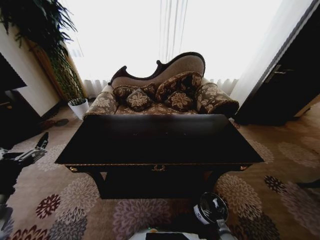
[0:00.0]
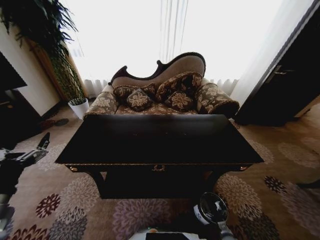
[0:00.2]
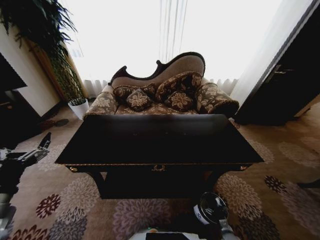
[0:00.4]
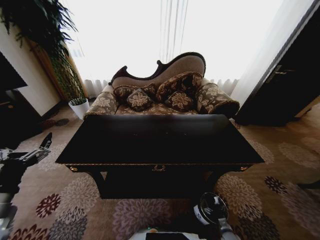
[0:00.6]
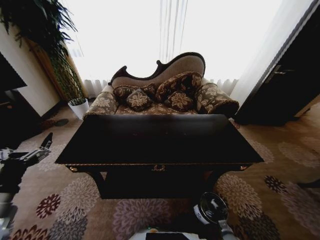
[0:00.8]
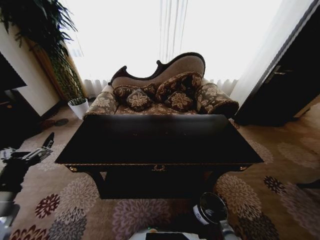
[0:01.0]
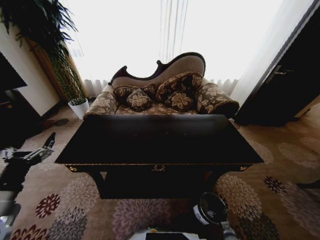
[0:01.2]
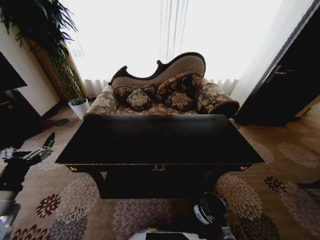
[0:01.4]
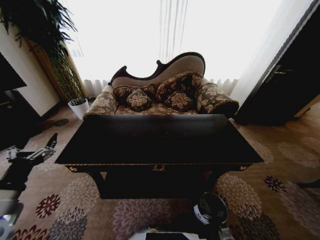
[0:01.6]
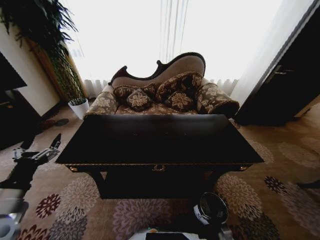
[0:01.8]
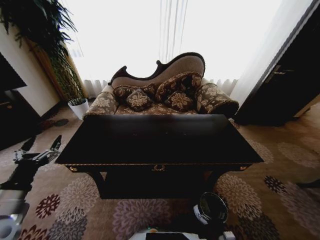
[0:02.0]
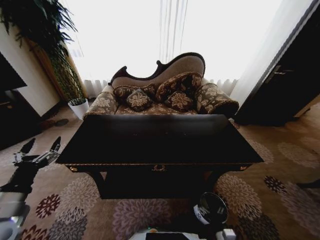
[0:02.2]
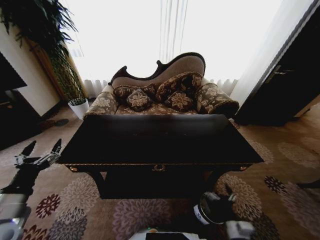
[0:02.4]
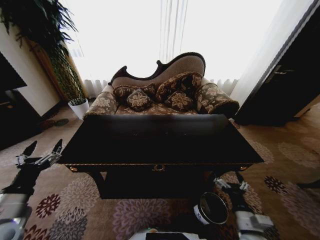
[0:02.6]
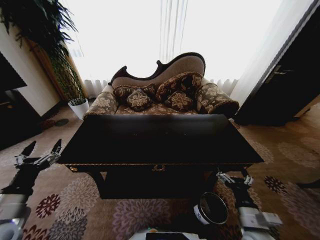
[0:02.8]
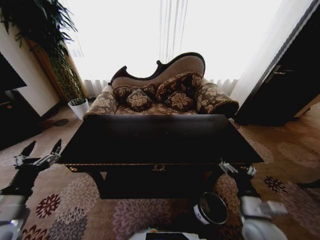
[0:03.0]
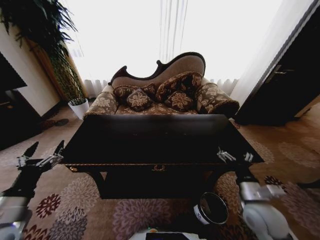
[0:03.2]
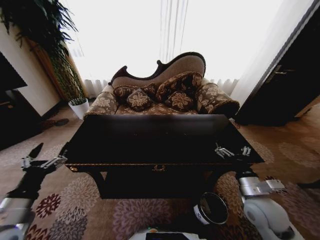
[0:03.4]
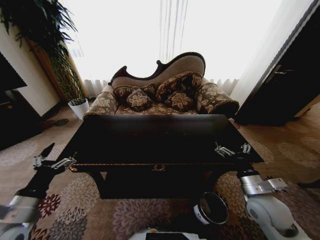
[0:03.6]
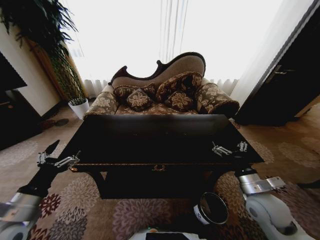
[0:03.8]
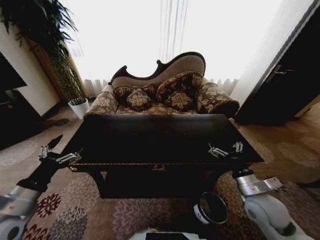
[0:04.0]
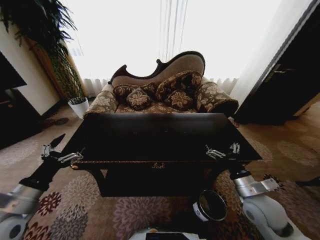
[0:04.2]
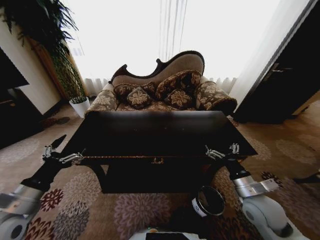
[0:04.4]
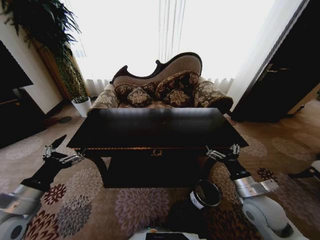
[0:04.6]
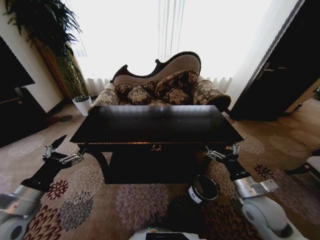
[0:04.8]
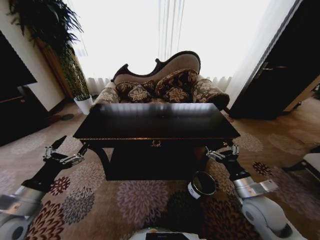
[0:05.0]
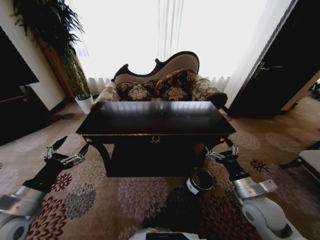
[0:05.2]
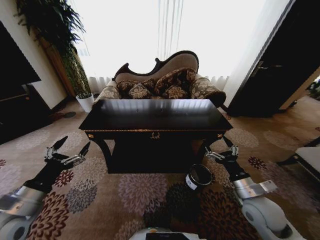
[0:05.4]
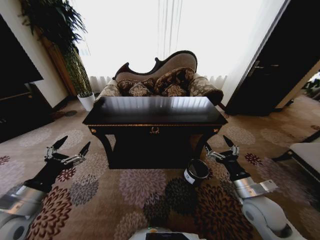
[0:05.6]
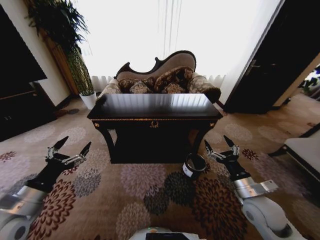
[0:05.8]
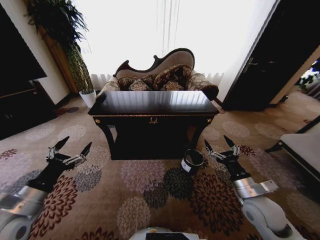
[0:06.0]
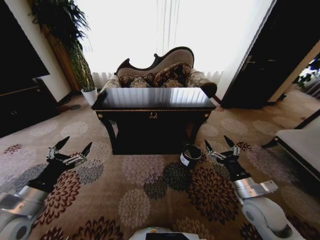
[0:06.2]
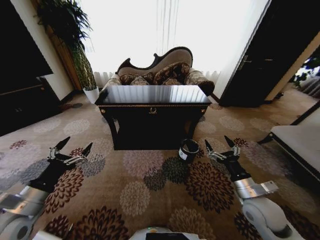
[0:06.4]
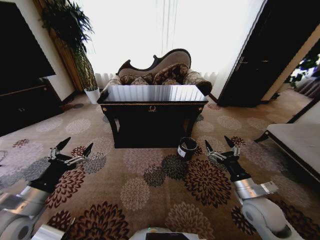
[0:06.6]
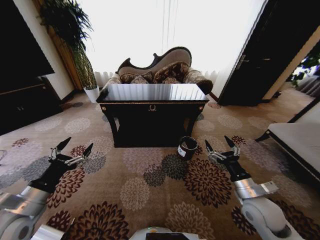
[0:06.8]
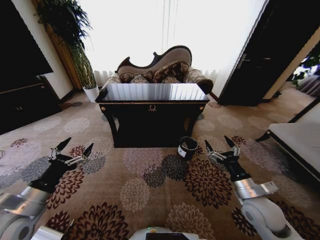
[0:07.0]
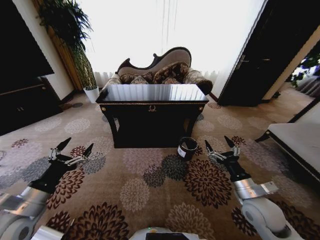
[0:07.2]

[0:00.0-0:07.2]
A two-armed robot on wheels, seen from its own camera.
Task of the whole recording: Move to the front of the table and place the trash on the table into the trash bin.
0.0 to 1.4 s: The grippers move only a little.
1.4 to 2.8 s: The right gripper heads upward, covering about 35 cm.
2.8 to 4.4 s: The right gripper travels forward and upward by roughly 10 cm.

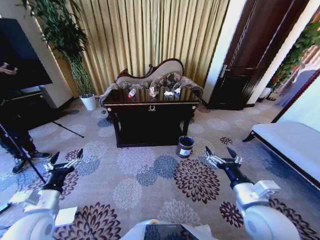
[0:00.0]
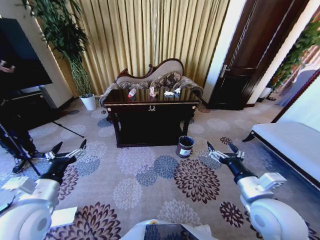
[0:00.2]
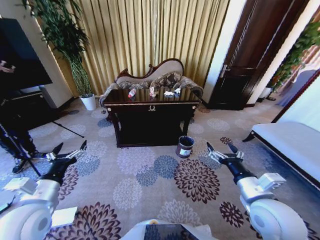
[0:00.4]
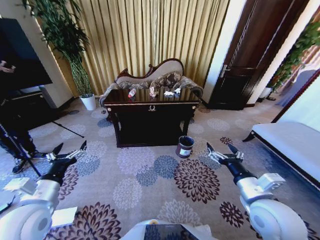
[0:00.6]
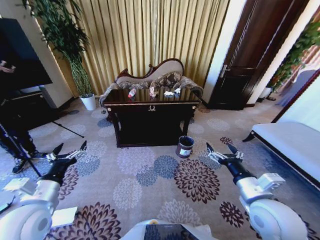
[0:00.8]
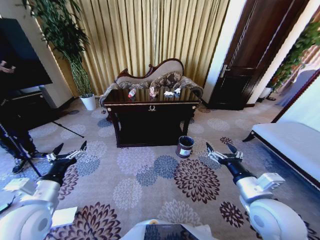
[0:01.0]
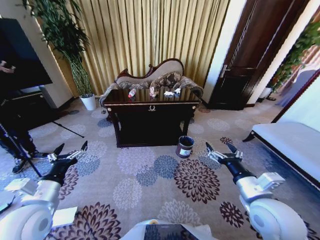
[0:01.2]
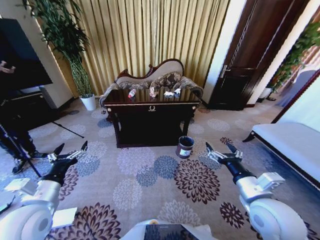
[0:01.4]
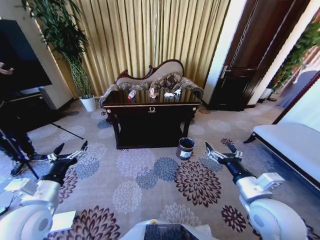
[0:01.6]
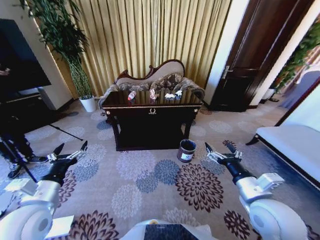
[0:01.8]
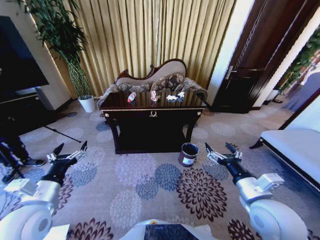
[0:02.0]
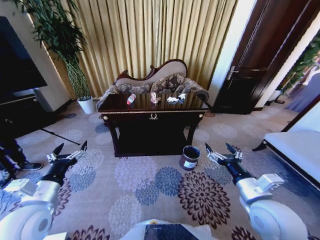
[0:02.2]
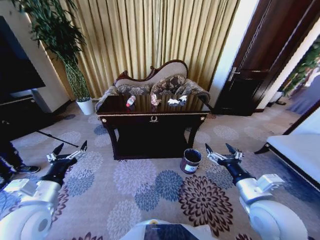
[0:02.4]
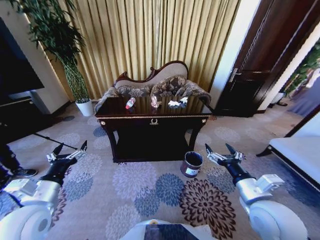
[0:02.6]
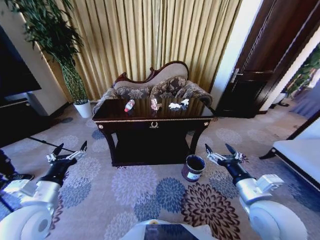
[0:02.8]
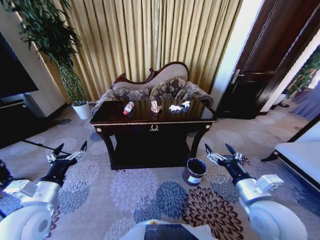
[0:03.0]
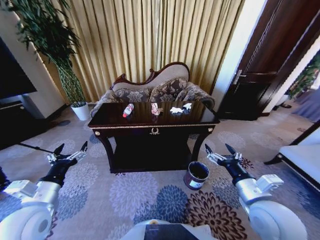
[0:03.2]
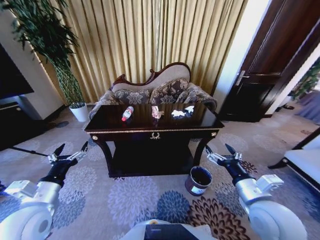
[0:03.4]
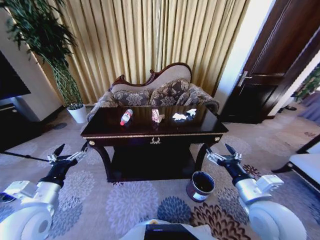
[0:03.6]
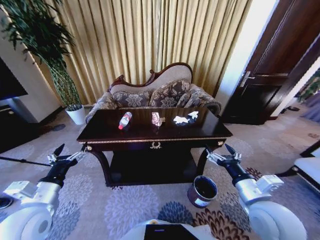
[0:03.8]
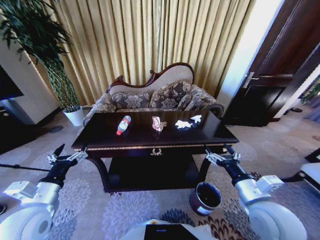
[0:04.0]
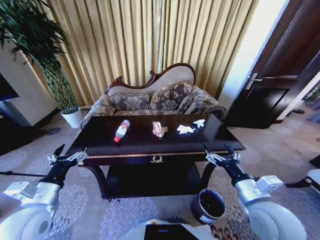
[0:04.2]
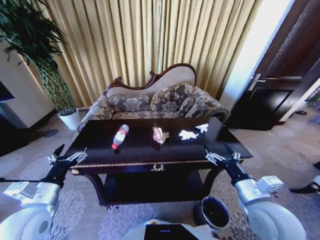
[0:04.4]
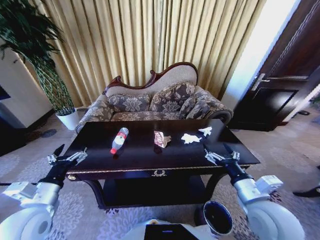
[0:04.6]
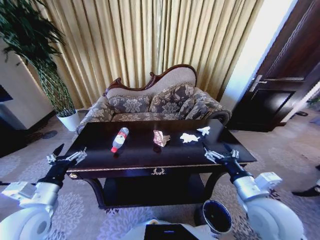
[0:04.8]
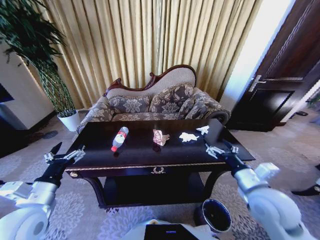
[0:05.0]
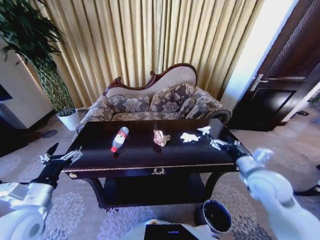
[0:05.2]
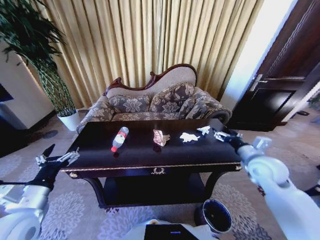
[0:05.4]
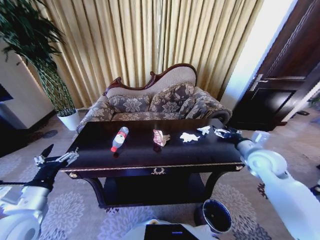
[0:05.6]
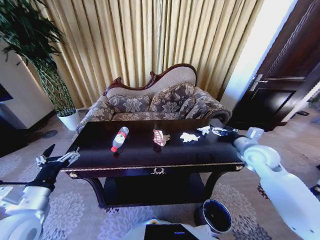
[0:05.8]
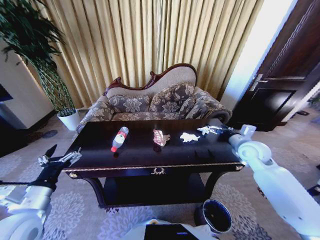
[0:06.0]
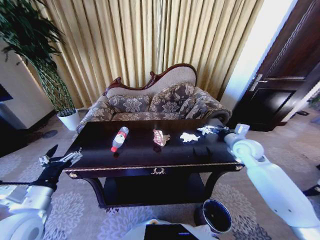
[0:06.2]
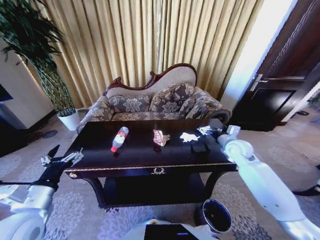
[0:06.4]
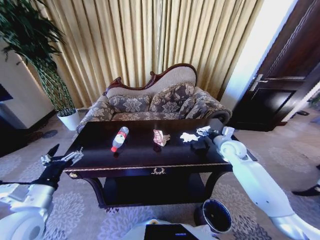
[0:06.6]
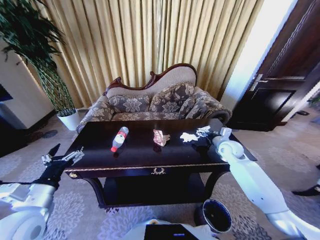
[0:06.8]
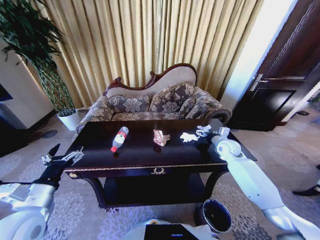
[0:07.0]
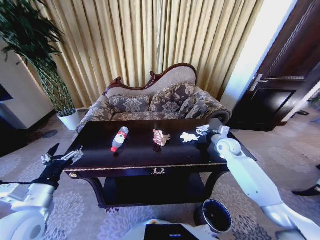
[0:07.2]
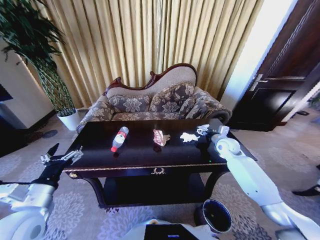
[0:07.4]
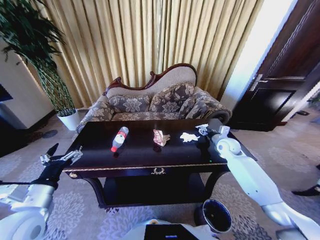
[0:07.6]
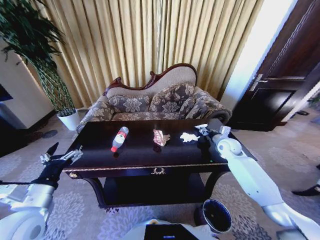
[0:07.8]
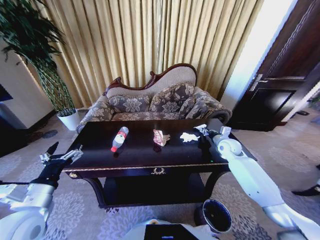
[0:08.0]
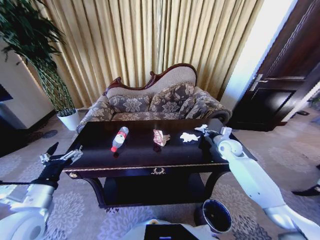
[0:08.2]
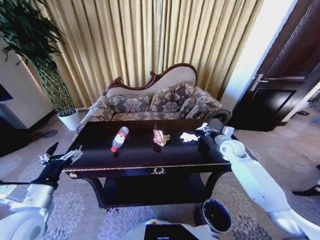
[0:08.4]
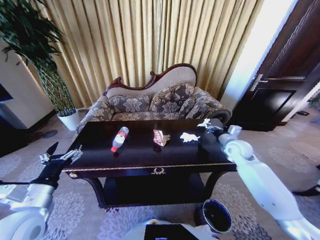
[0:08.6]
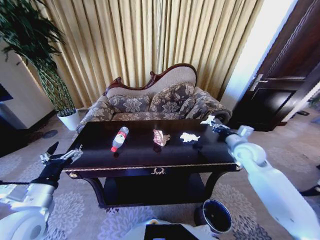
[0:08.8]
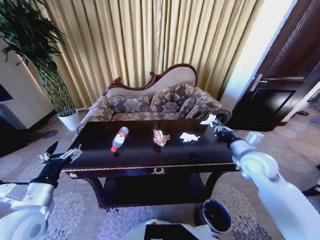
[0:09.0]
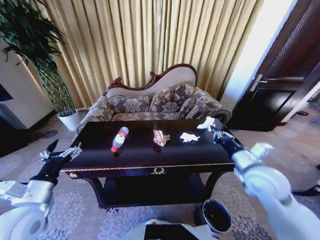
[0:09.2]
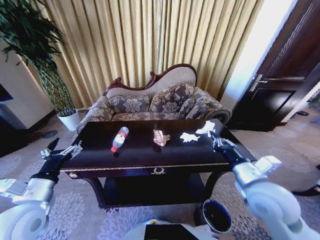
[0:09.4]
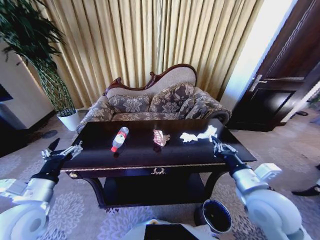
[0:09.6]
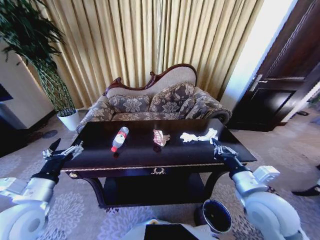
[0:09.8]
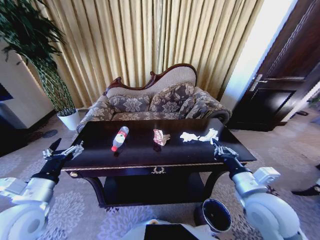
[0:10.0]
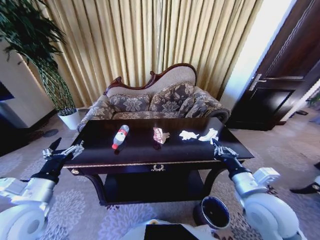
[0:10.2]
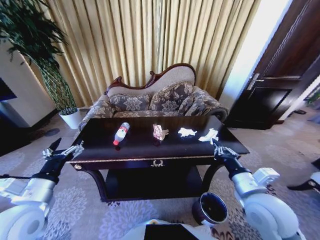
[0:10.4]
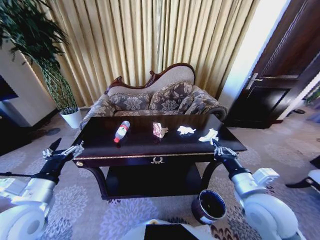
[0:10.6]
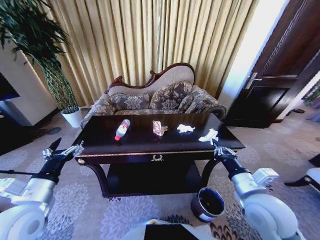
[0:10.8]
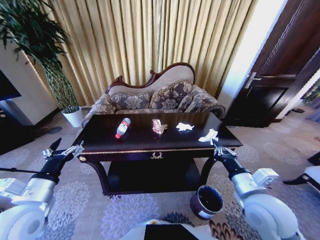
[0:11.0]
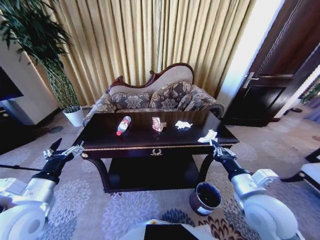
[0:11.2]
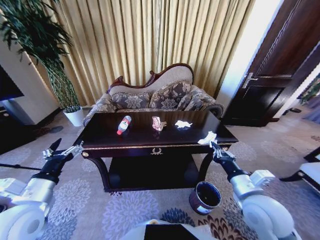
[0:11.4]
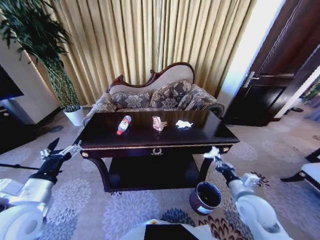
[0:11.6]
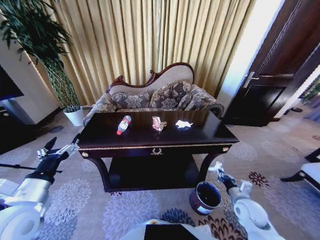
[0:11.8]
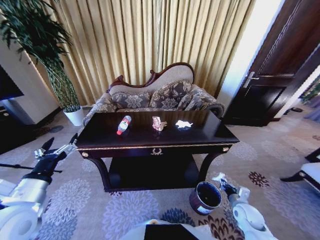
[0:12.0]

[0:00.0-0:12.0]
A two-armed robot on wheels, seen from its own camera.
Task of the whole recording: Move to the front of the table and place the trash on the table into the trash bin.
4.4 to 6.0 s: The right gripper shifts approximately 25 cm forward and to the right.
6.0 to 7.6 s: The right gripper is displaced forward and downward by some 10 cm.
7.6 to 9.0 s: The right gripper heads backward and upward, covering roughly 15 cm, and closes.
9.0 to 10.4 s: The right gripper heads backward and to the left, covering about 15 cm.
10.4 to 12.0 s: The right gripper heads downward and to the right, covering about 30 cm.

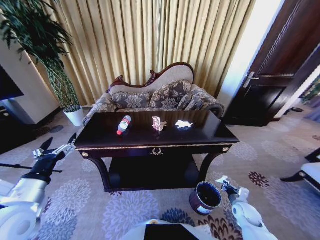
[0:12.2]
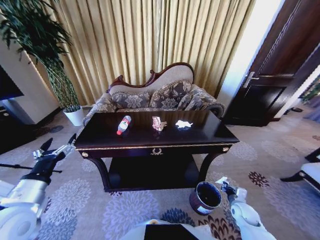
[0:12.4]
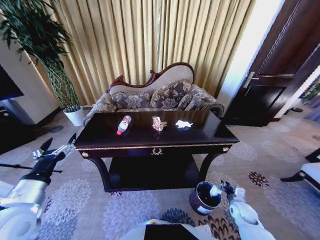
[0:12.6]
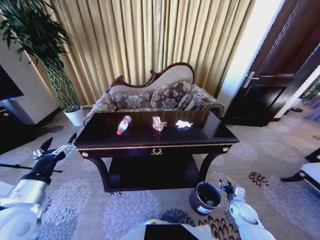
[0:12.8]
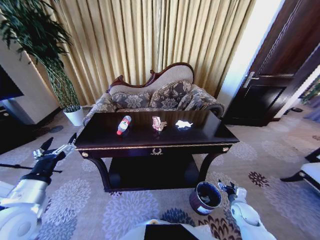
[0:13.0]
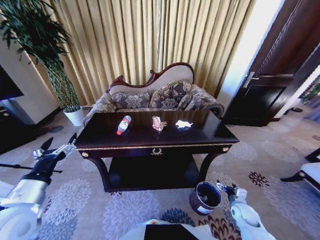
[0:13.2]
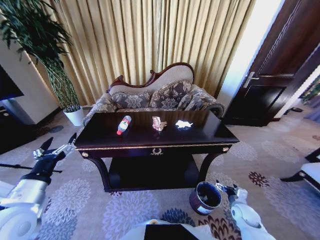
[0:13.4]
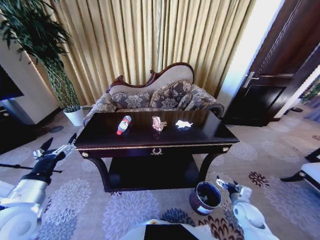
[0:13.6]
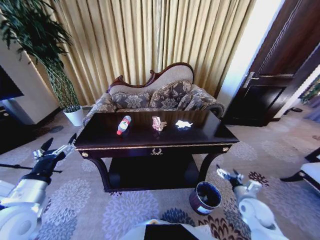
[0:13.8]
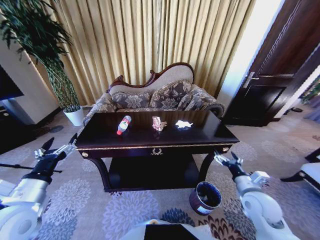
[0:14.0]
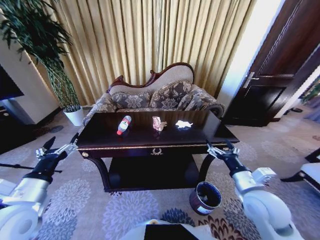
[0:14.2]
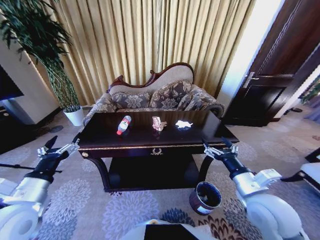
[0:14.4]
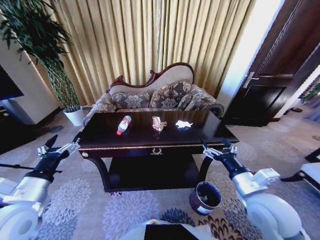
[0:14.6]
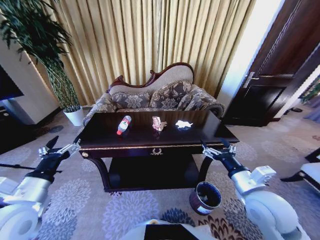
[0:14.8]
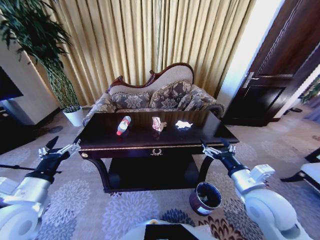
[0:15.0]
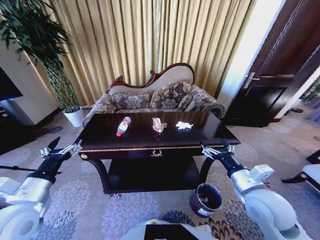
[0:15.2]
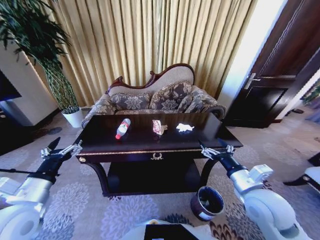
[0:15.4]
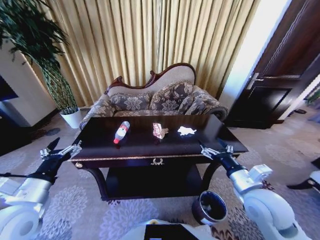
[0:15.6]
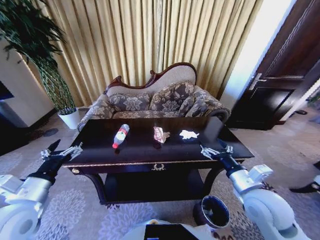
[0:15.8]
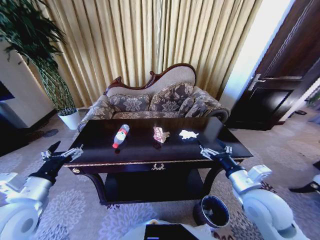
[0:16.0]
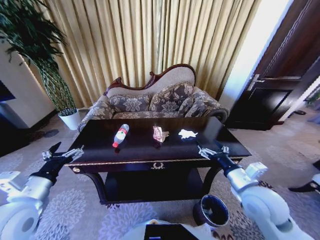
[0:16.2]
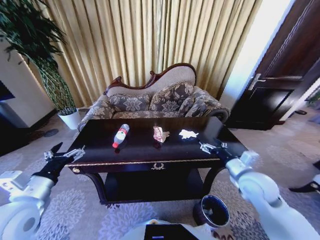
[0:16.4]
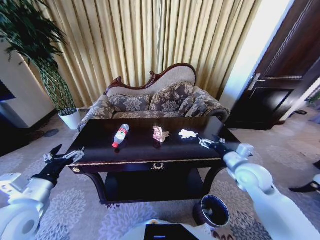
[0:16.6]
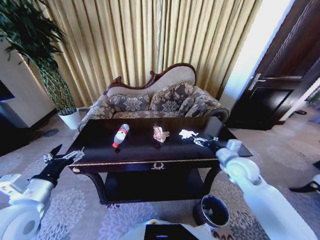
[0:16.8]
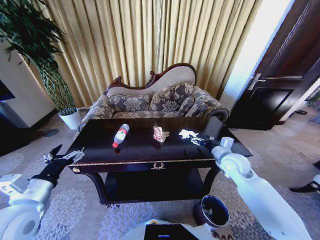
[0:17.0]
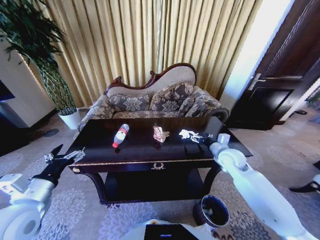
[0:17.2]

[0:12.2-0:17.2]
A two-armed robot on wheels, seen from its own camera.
Task of the whole recording: Move to the front of the table and place the trash on the table into the trash bin.
12.2 to 13.8 s: The right gripper travels upward by some 10 cm, and opens its fingers.
13.8 to 15.6 s: The right gripper heads upward and to the left, covering about 20 cm.
15.6 to 17.2 s: The right gripper is displaced forward by some 20 cm.
